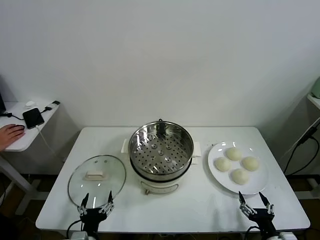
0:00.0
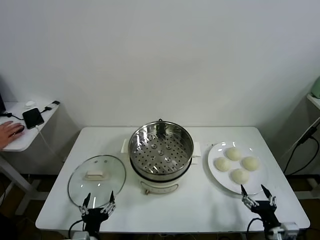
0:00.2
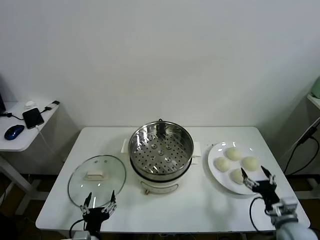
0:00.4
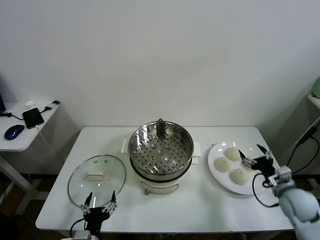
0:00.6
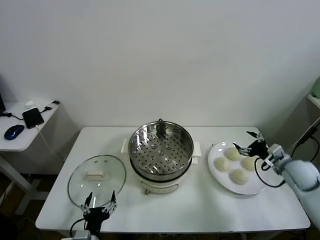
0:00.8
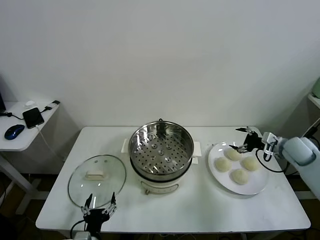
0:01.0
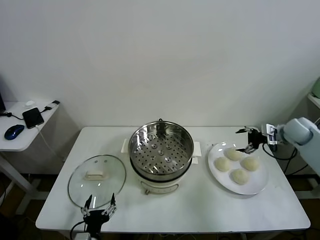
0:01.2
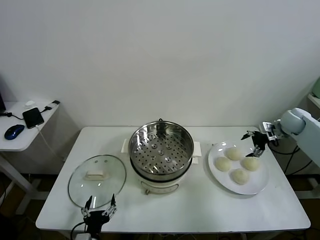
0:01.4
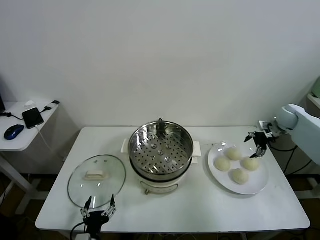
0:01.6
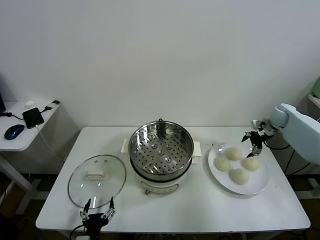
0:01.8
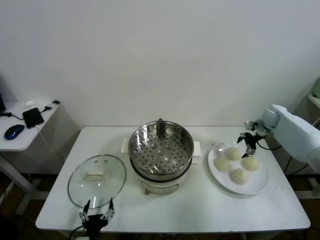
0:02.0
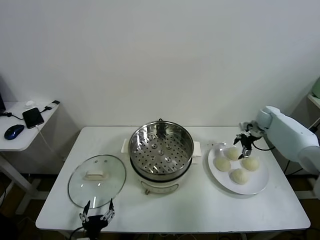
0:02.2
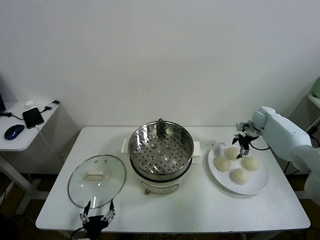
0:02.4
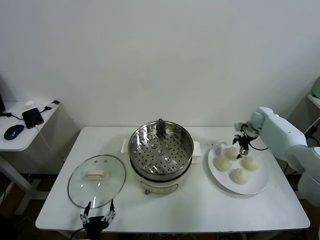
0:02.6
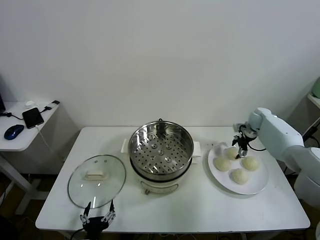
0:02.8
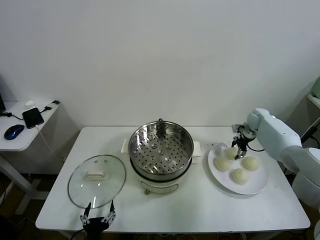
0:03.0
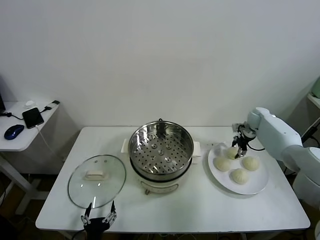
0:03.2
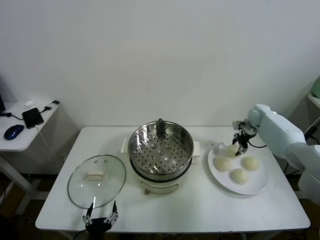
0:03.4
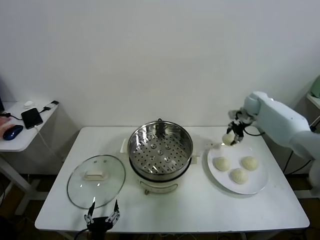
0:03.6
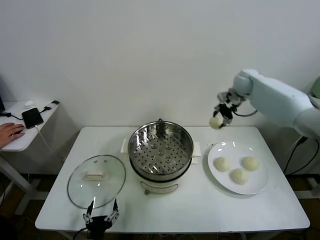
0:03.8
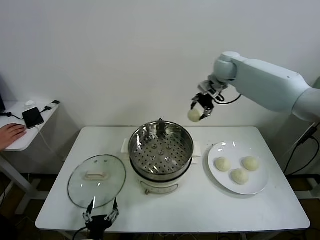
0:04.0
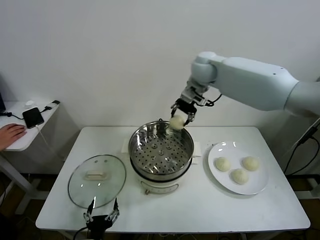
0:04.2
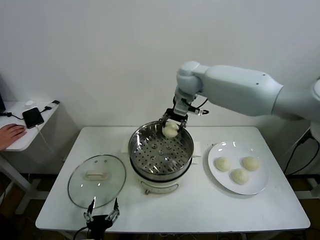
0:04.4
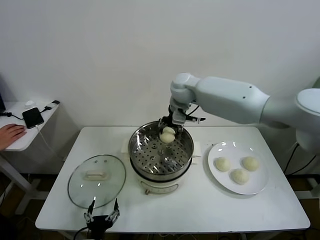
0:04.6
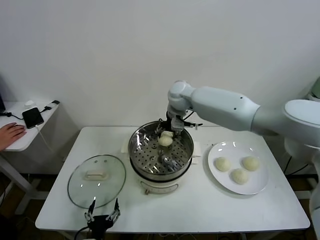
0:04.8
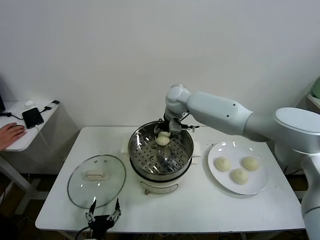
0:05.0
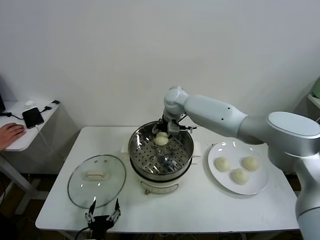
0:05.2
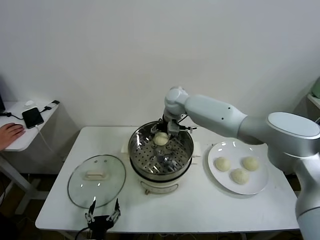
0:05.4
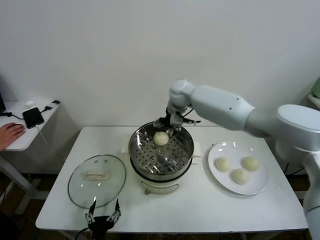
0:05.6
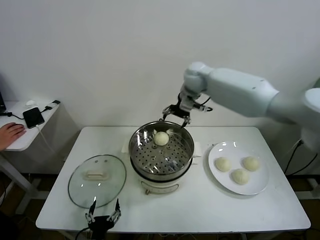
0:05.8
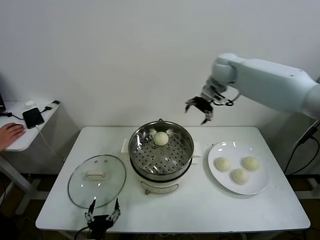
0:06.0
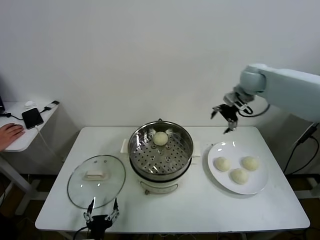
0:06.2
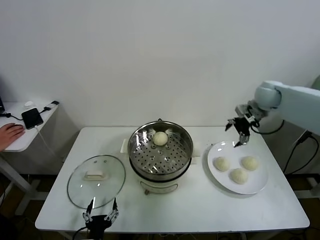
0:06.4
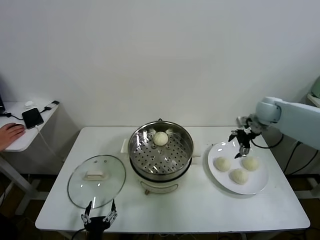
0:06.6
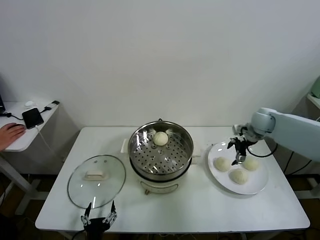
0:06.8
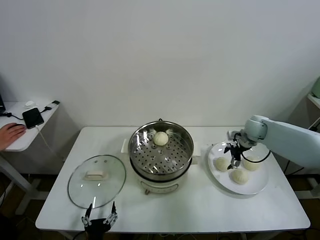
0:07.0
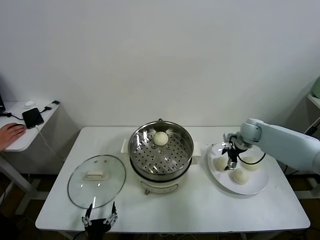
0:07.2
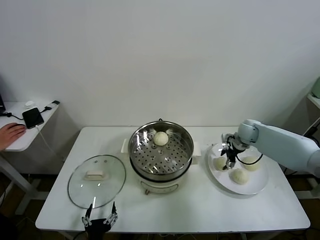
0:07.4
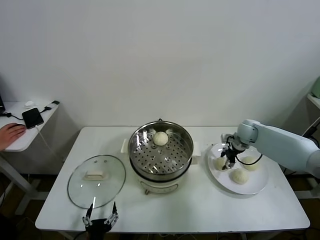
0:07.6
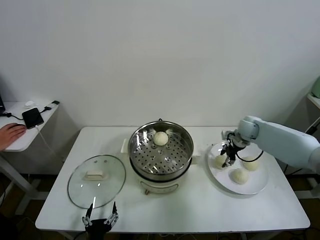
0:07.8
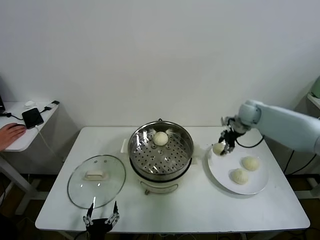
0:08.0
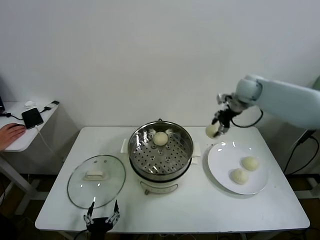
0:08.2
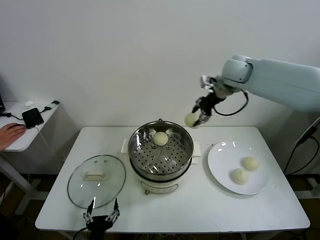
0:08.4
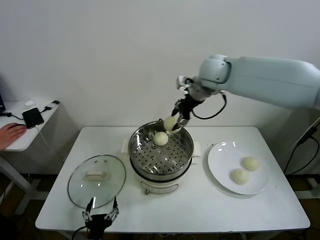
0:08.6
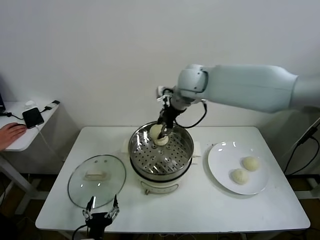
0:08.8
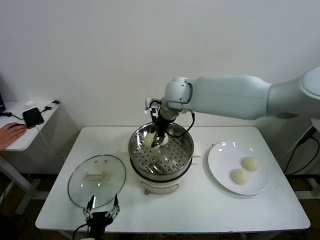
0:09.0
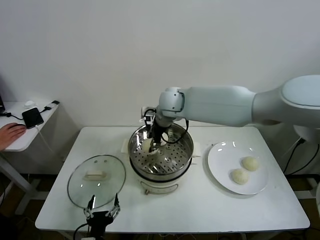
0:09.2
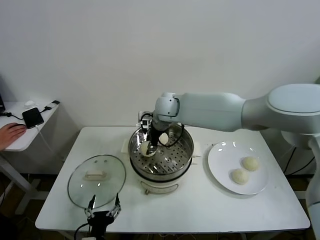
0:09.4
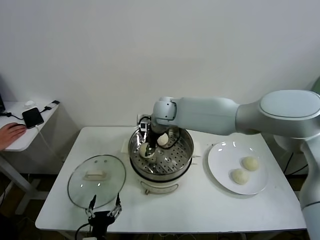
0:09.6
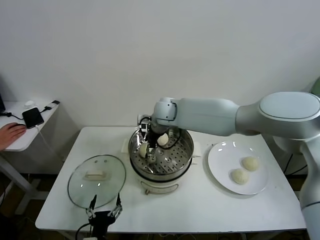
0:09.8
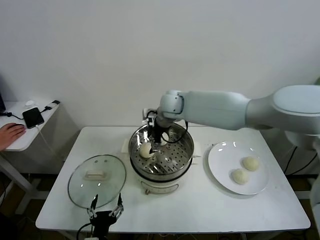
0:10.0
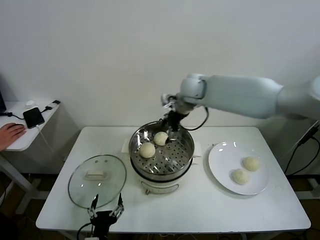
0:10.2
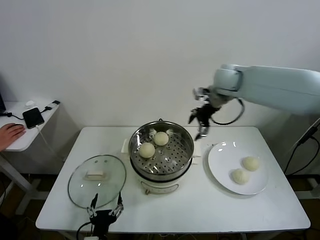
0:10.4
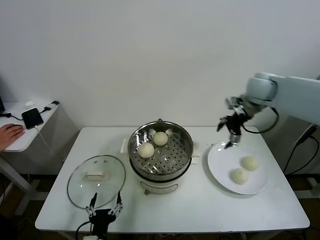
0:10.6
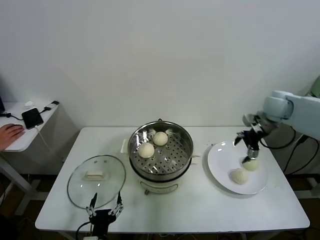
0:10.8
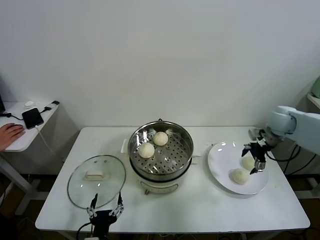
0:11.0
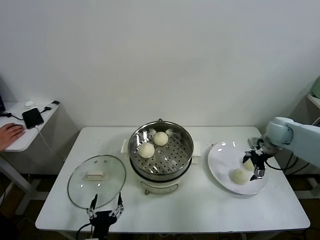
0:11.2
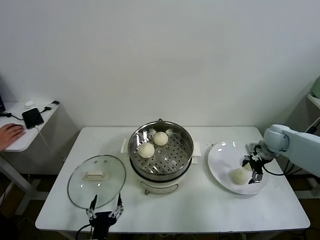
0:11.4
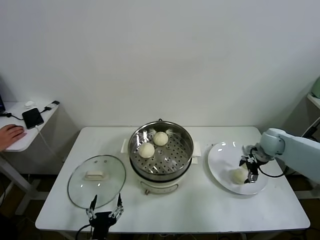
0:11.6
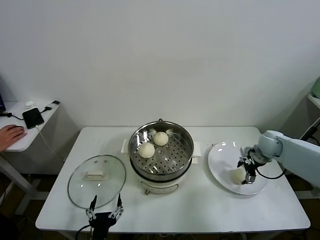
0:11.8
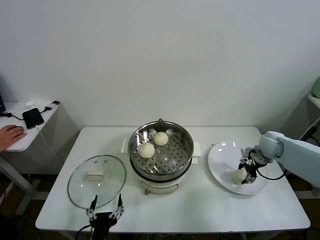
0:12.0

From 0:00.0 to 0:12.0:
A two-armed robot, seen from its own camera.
Task of the whole recording: take steamed baozi put them in steamer.
Step, from 0:00.0 to 0:03.0: Grasp the baozi in the plate with right gripper.
Step, from 0:03.2 to 0:05.4: Place the baozi on the steamer with right gripper.
Step, from 0:05.6 to 0:07.6: Grasp the baozi in the plate with right gripper.
Step, from 0:07.8 to 0:09.8: Place the baozi on the steamer with right gripper.
Step, from 0:10.0 to 0:12.0: Grasp the baozi in the plate with right gripper.
From 0:01.6 to 0:03.0: The right gripper heads to the left and downward, covering roughly 10 cm, and closes up.
From 0:03.0 to 0:04.4: The right gripper goes approximately 40 cm to the left and upward.
From 0:04.4 to 0:06.0: The right gripper travels to the right by roughly 15 cm, and opens its fingers.
From 0:06.0 to 0:07.6: The right gripper travels downward and to the right by some 25 cm, and closes up.
From 0:07.6 to 0:09.0: The right gripper goes approximately 35 cm to the left and upward.
From 0:09.0 to 0:10.4: The right gripper is displaced to the right by roughly 20 cm, and opens up.
From 0:10.4 to 0:12.0: The right gripper moves downward and to the right, approximately 30 cm, and closes.

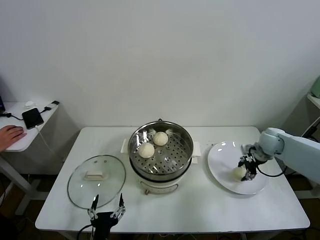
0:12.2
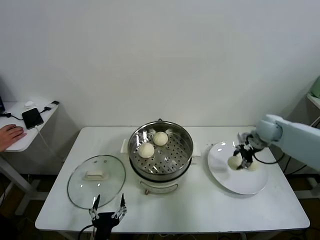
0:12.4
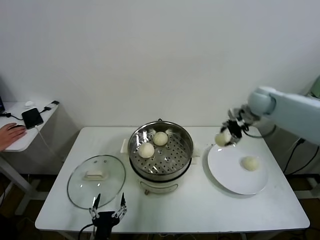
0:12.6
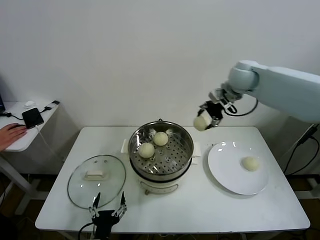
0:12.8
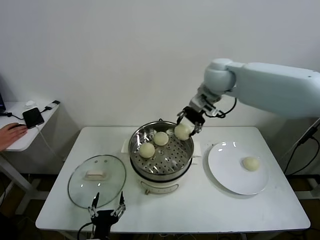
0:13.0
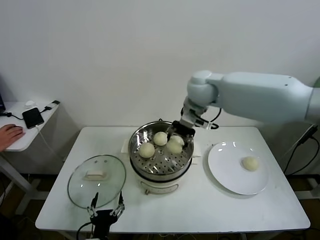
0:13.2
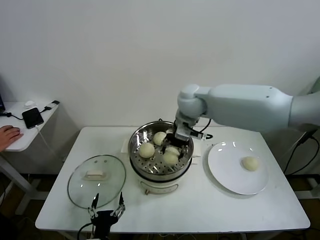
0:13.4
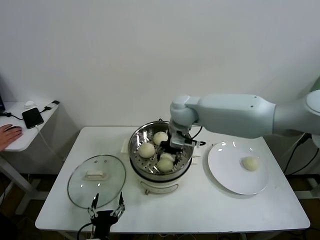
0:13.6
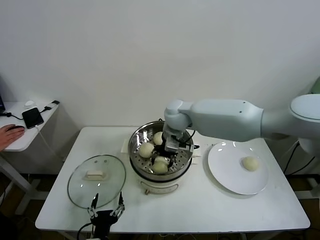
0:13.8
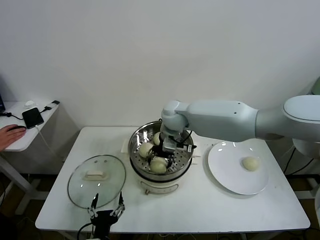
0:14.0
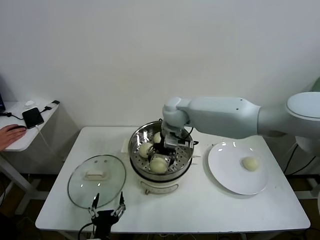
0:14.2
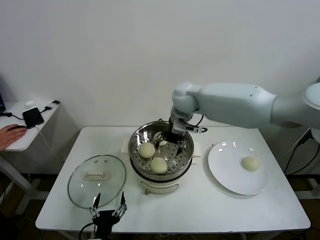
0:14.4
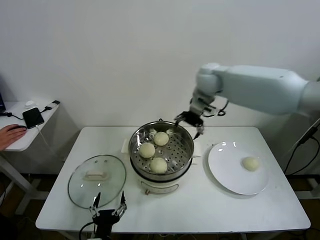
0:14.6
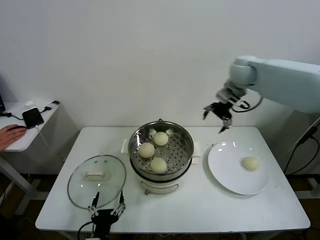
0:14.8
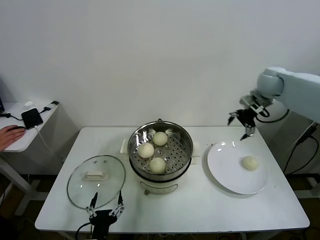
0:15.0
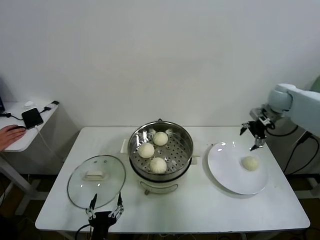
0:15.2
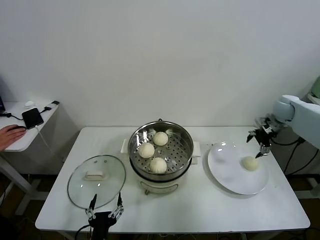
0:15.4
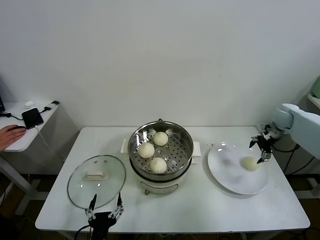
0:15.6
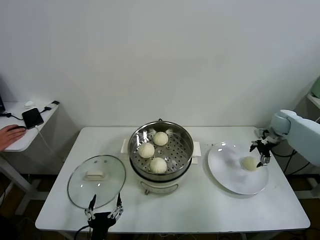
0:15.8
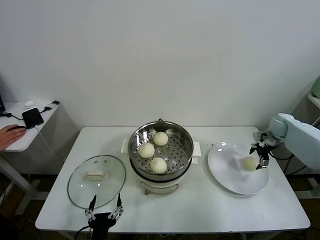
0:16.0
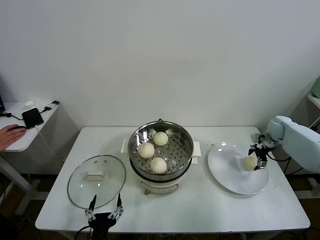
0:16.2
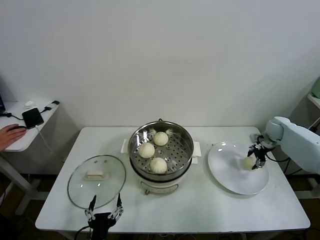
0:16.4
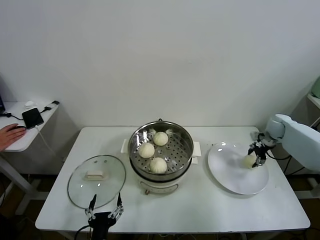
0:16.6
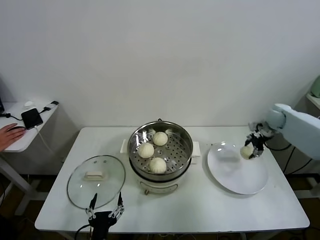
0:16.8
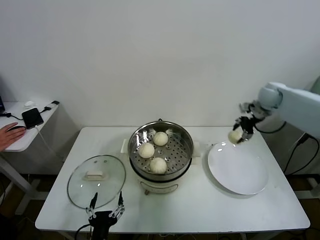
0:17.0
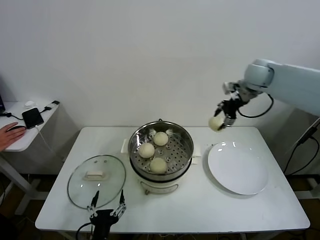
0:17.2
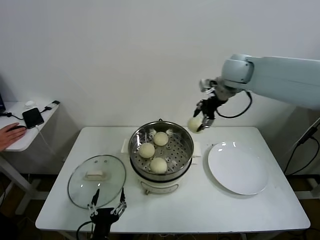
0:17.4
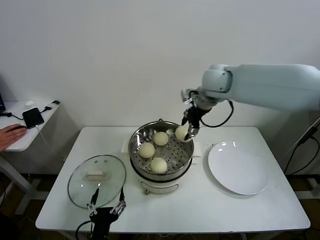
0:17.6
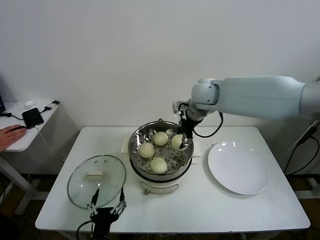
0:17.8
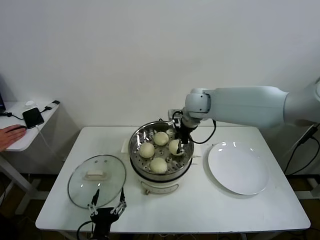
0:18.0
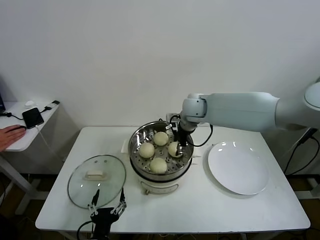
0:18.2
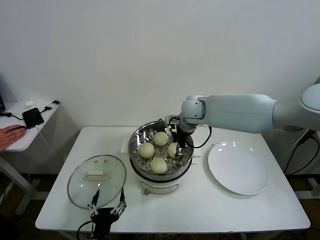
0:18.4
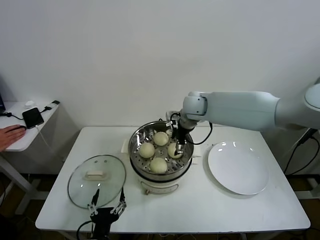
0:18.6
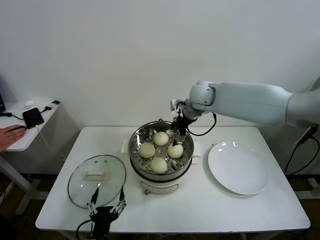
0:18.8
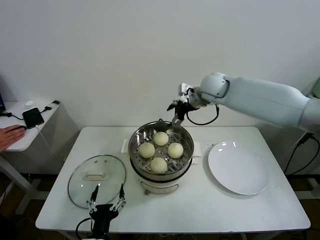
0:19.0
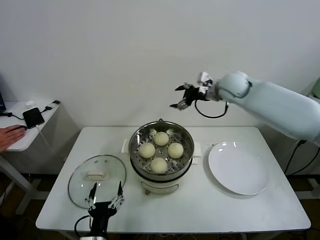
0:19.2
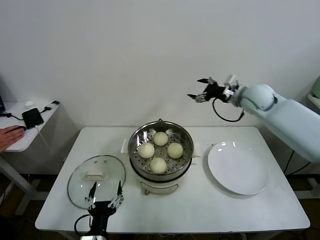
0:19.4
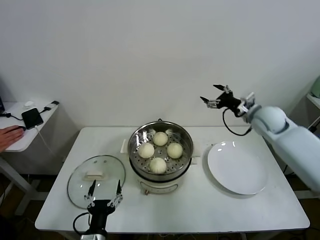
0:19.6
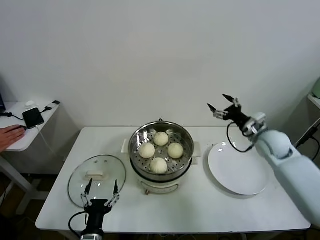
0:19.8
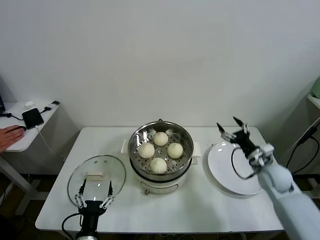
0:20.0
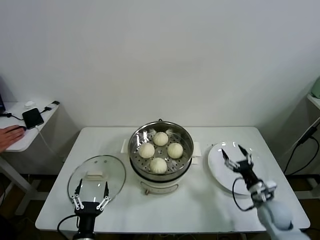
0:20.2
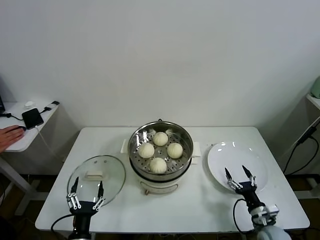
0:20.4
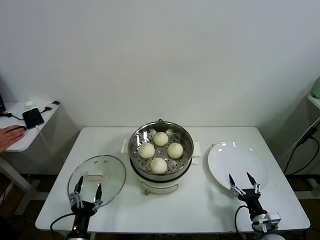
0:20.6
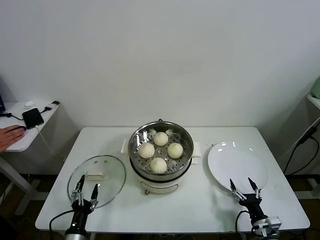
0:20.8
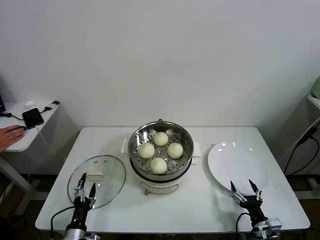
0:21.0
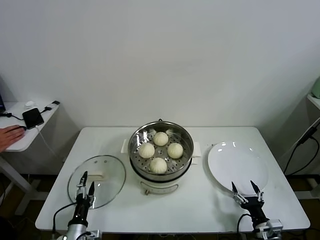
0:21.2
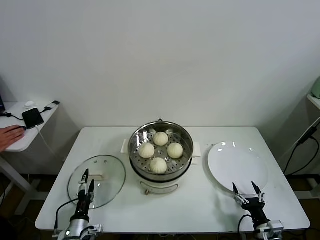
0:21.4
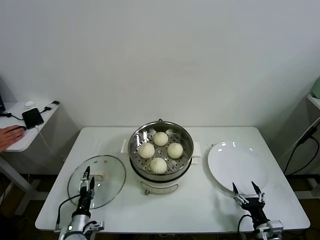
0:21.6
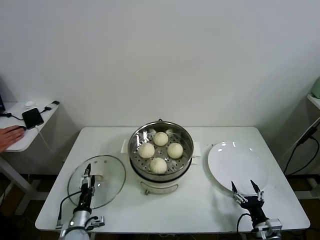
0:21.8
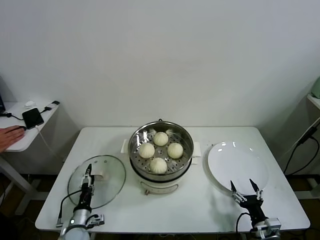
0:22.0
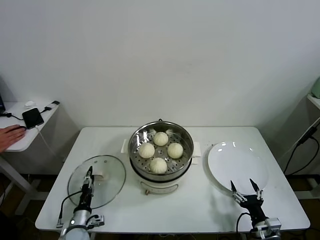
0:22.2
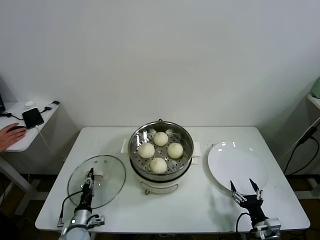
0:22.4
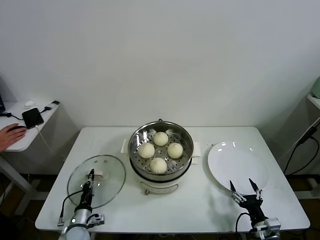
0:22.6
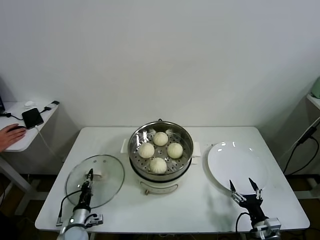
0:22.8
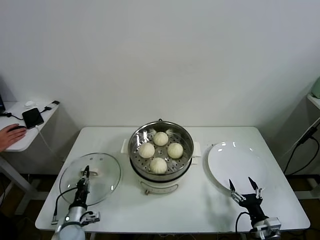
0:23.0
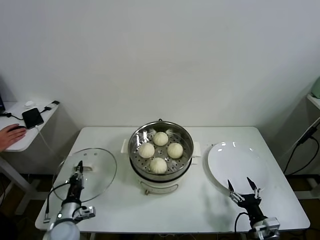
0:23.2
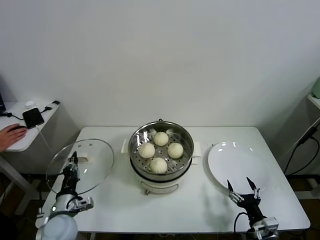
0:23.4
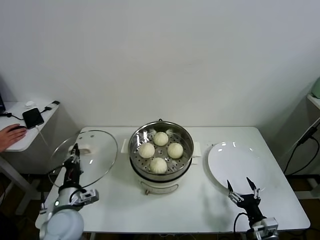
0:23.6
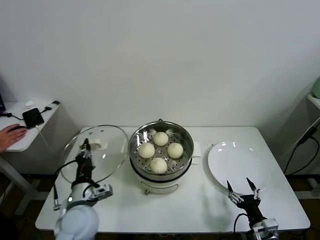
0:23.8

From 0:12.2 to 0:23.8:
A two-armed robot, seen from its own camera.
Task of the whole recording: take steamed baozi put them in steamer.
Step, from 0:12.2 to 0:14.0: Place the baozi on the steamer with right gripper.
Step, from 0:14.2 to 0:16.4: Grasp the baozi in the plate with right gripper.
Step, from 0:16.6 to 0:18.4: Place the baozi on the steamer with right gripper.
Step, from 0:18.6 to 0:22.6: Grasp the pot lid with left gripper.
From 0:12.2 to 0:13.6: The right gripper goes some 35 cm to the left.
From 0:13.6 to 0:15.0: The right gripper travels to the right by roughly 30 cm, and opens.
From 0:15.0 to 0:16.6: The right gripper is displaced downward and to the right by about 20 cm, and closes.
From 0:16.6 to 0:18.0: The right gripper goes some 40 cm to the left and upward.
From 0:18.0 to 0:19.4: The right gripper travels to the right by some 20 cm, and opens its fingers.
From 0:19.4 to 0:21.0: The right gripper heads downward and backward, covering roughly 50 cm; the left gripper travels to the left and downward by some 15 cm.
From 0:21.0 to 0:22.4: The left gripper moves forward, approximately 10 cm, and closes.
From 0:22.4 to 0:23.8: The left gripper goes approximately 20 cm upward, and closes.
